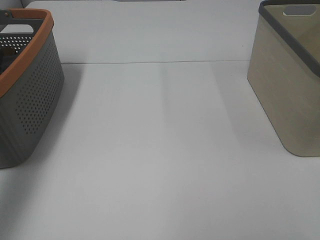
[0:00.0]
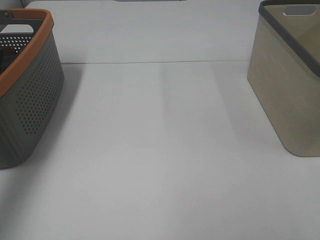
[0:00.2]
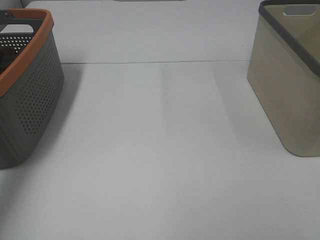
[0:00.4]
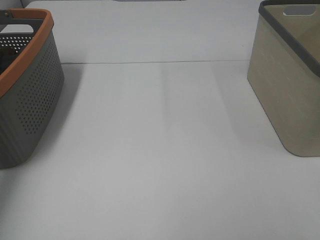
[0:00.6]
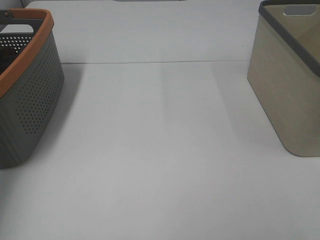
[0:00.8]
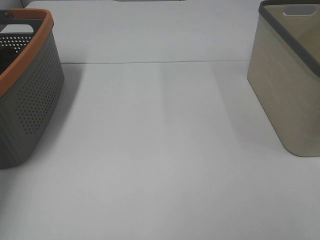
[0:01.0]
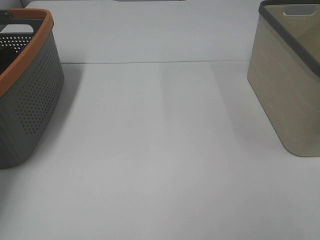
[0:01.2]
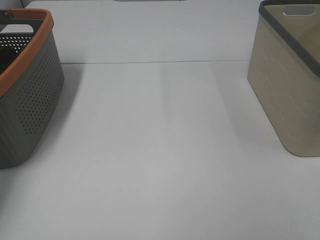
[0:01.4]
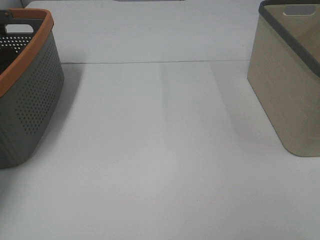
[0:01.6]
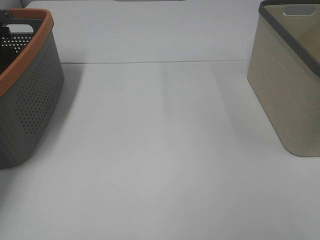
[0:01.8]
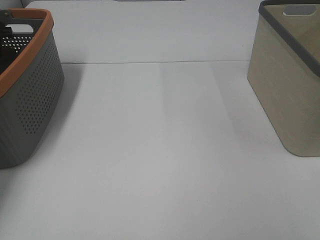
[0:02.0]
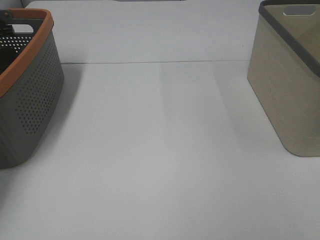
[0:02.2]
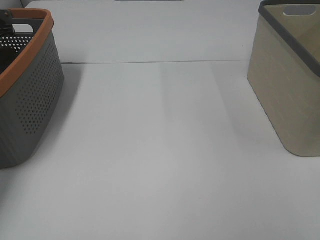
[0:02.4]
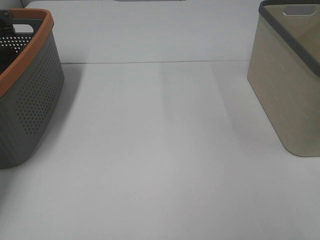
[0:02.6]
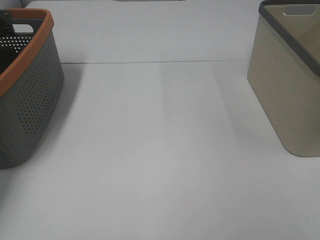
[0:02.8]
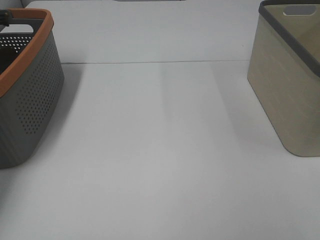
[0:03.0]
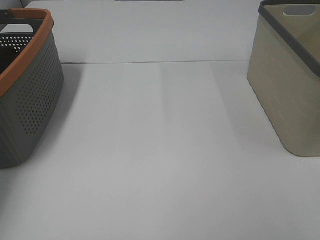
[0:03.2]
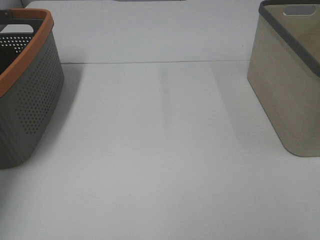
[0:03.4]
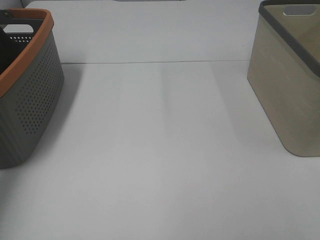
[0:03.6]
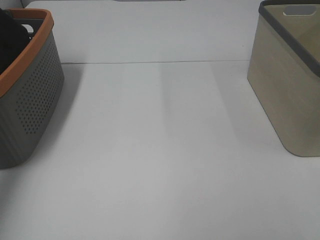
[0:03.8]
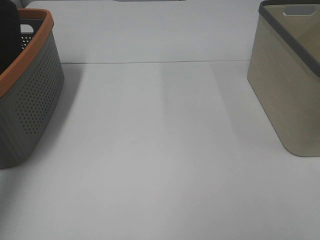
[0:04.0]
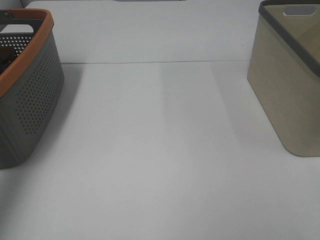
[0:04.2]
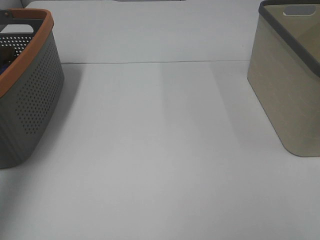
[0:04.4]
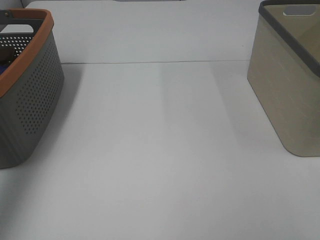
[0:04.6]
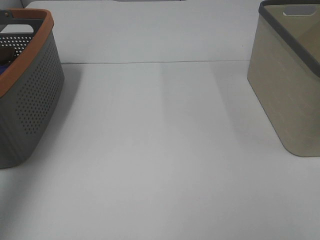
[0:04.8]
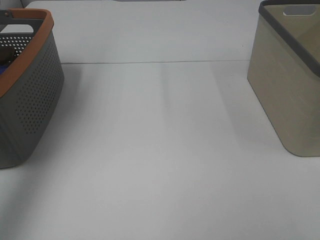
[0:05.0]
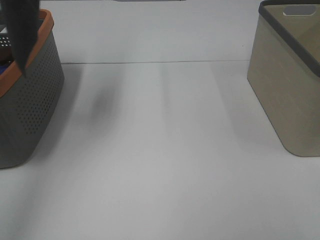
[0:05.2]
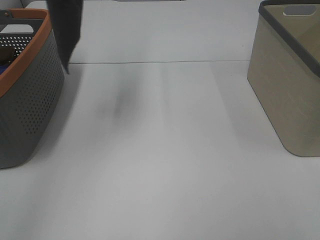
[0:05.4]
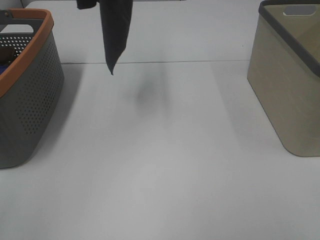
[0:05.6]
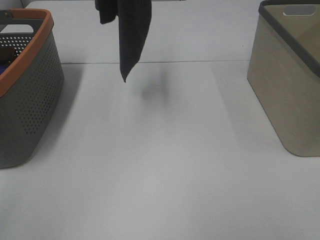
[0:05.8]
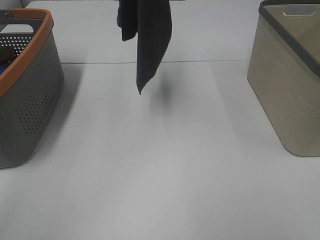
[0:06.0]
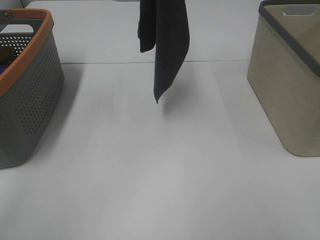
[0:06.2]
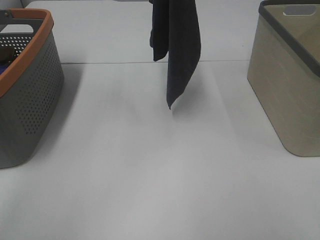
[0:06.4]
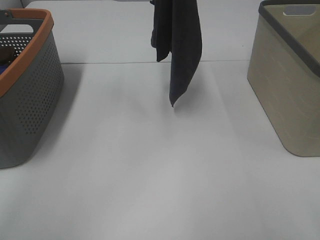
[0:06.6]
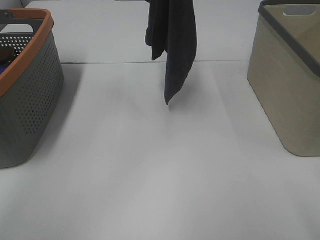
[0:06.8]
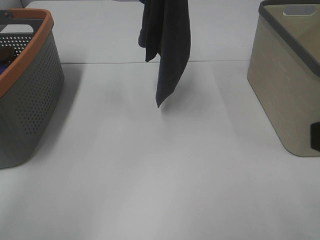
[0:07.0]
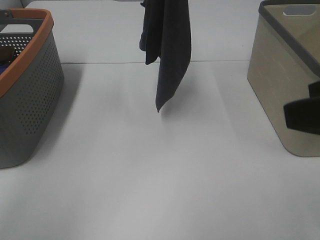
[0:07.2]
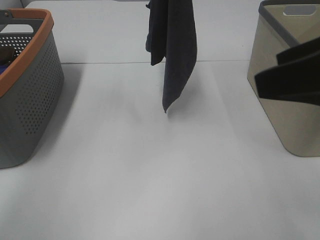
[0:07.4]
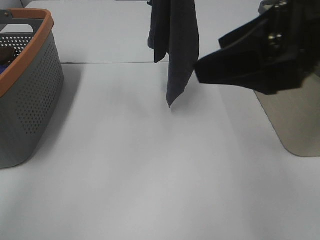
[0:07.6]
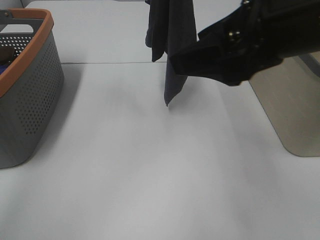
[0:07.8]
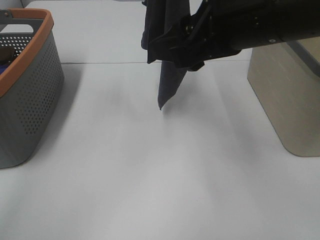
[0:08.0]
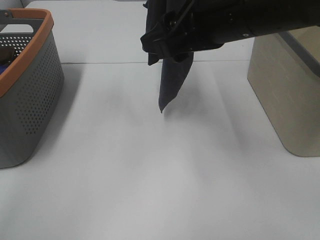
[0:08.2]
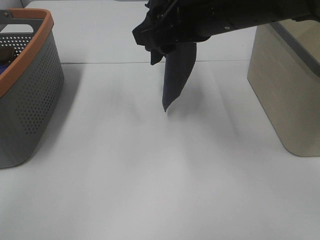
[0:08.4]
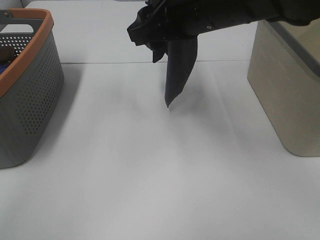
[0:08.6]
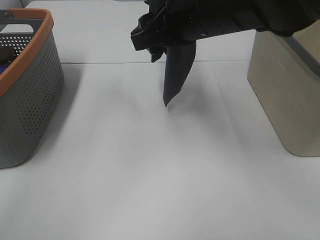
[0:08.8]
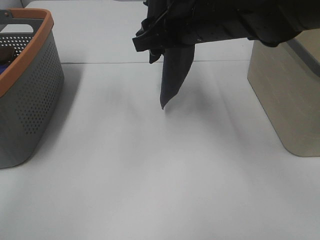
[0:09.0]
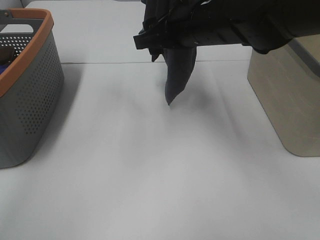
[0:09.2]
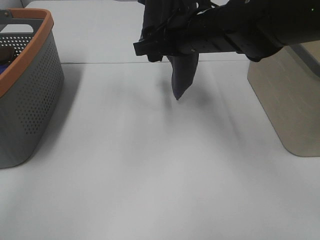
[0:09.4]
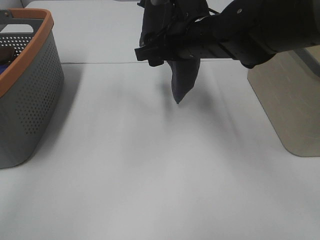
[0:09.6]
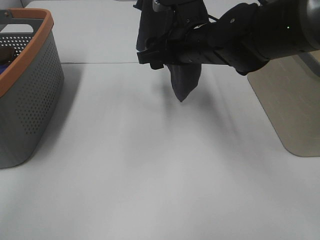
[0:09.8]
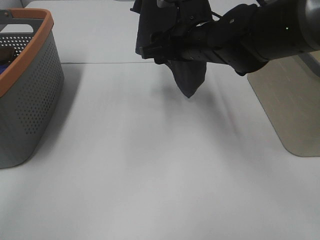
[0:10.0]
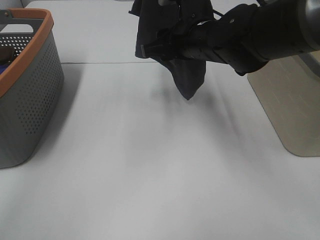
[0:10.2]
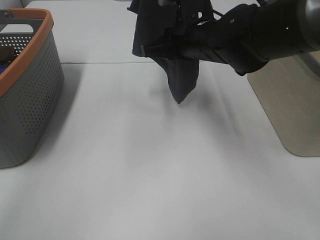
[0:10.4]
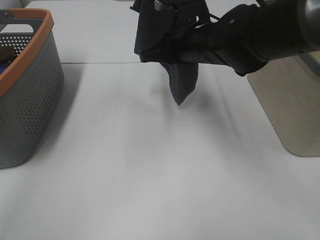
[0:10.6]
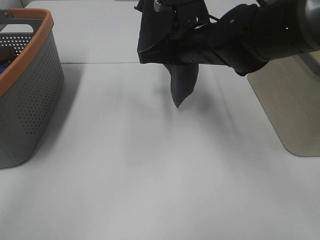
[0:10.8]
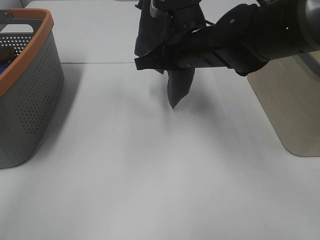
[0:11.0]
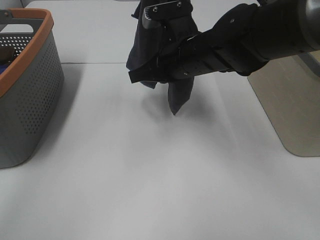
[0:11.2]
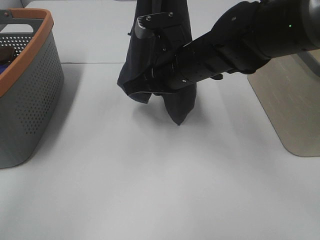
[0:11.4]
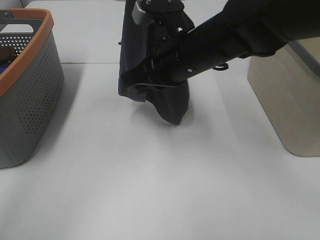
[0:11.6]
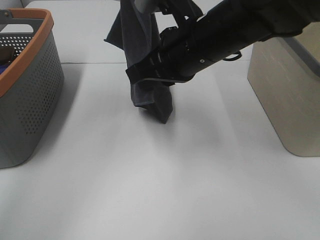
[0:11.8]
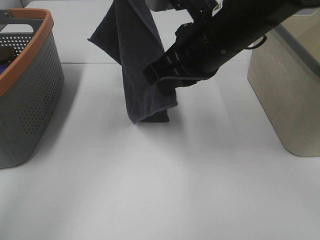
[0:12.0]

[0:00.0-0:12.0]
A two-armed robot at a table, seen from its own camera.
Task of the whole recording: Remove the towel and place it.
Step, 0:04.2 to 0:09.6: Right hand: grab a corner of the grey towel and straighten it.
0:00.0 to 0:01.6: The left gripper shifts approximately 25 cm forward and downward.
0:03.0 to 0:04.4: The left gripper goes approximately 35 cm upward and backward.
0:04.4 to 0:06.0: The left gripper moves to the right, some 25 cm.
0:06.0 to 0:07.6: The right gripper shifts roughly 20 cm forward and to the left; the left gripper moves approximately 5 cm.
0:07.6 to 0:09.0: The right gripper heads forward, to the left and downward, covering roughly 20 cm.
0:09.0 to 0:10.4: The right gripper shifts by approximately 5 cm, and closes its fingers.
0:10.4 to 0:12.0: The right gripper shifts approximately 10 cm backward and upward, and closes up. Meanwhile the left gripper is displaced to the left by some 5 cm.

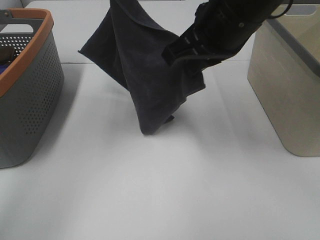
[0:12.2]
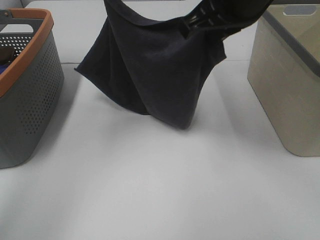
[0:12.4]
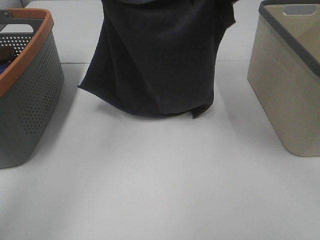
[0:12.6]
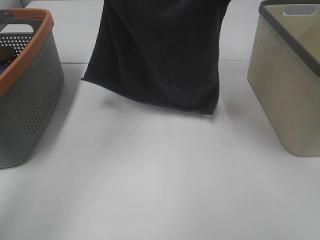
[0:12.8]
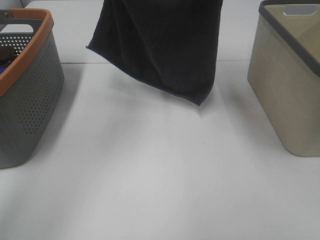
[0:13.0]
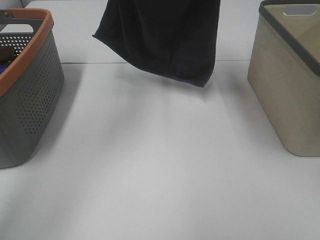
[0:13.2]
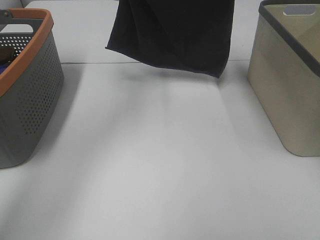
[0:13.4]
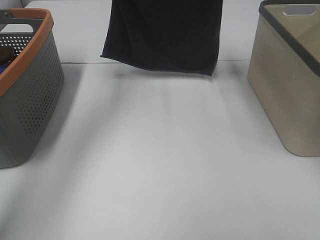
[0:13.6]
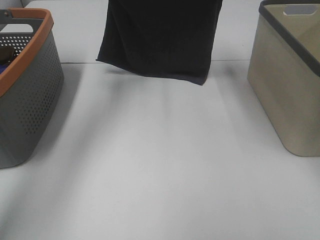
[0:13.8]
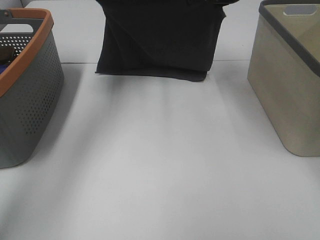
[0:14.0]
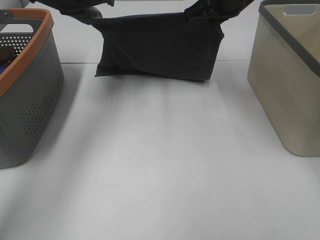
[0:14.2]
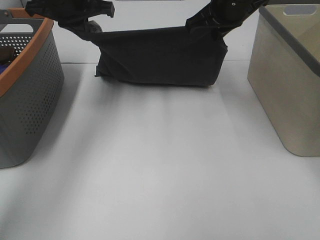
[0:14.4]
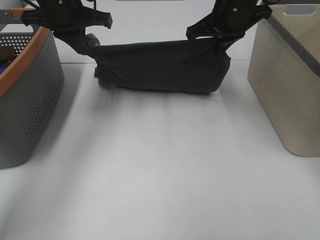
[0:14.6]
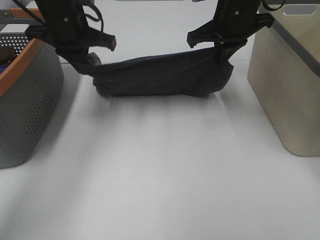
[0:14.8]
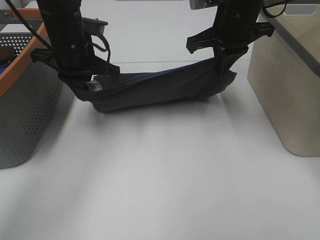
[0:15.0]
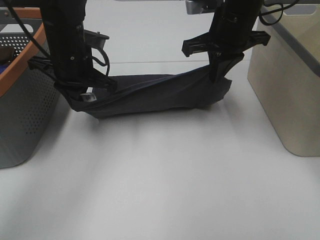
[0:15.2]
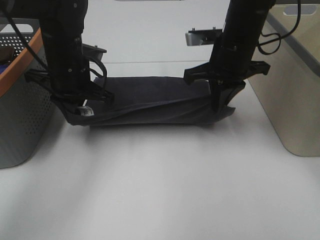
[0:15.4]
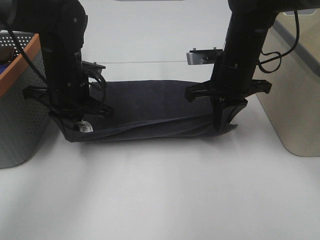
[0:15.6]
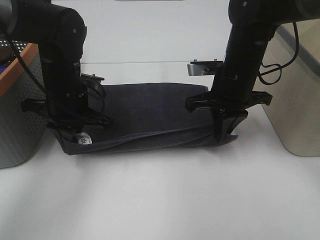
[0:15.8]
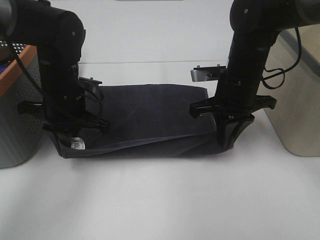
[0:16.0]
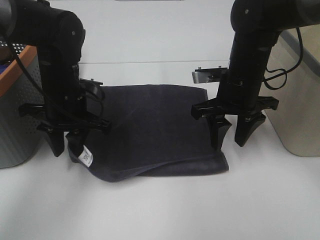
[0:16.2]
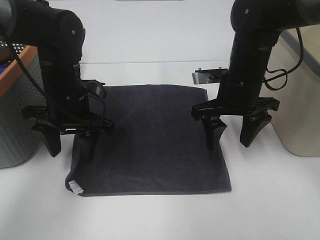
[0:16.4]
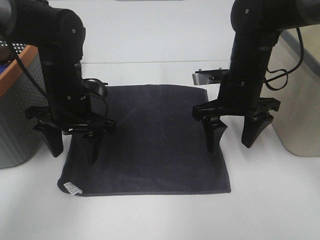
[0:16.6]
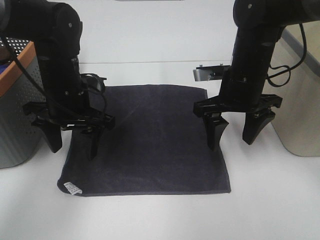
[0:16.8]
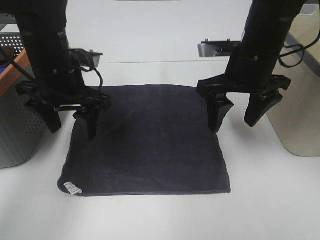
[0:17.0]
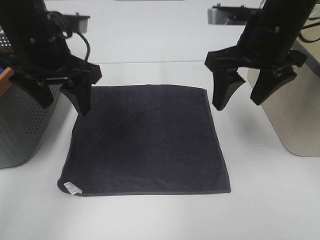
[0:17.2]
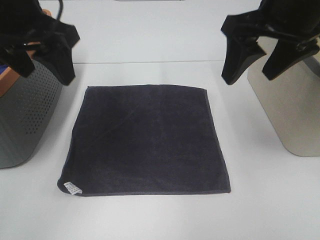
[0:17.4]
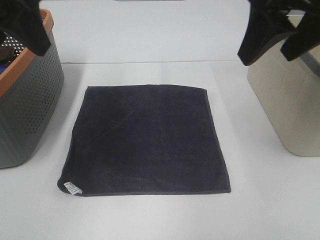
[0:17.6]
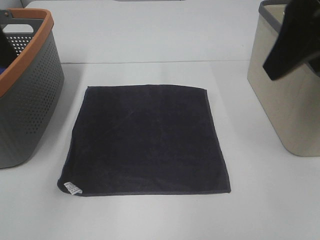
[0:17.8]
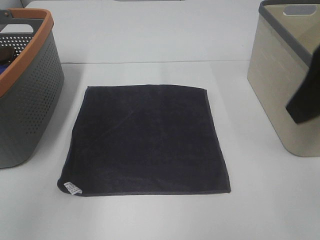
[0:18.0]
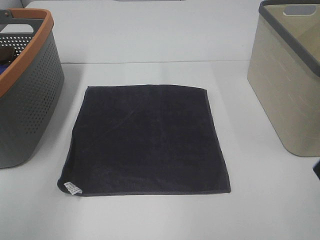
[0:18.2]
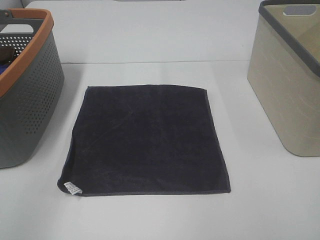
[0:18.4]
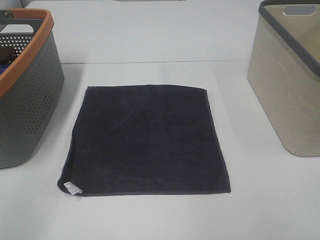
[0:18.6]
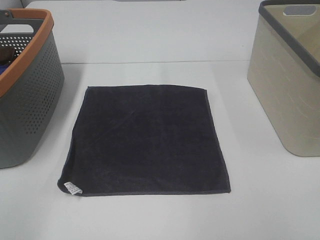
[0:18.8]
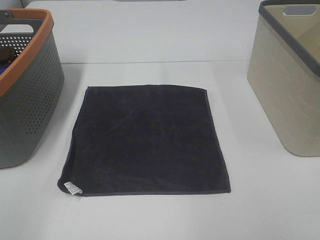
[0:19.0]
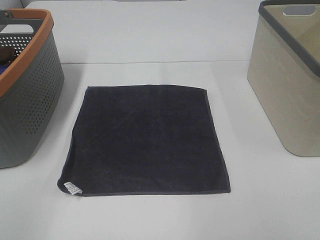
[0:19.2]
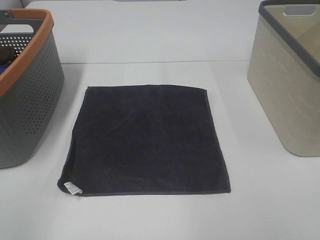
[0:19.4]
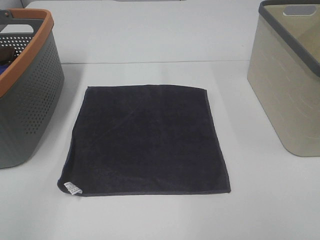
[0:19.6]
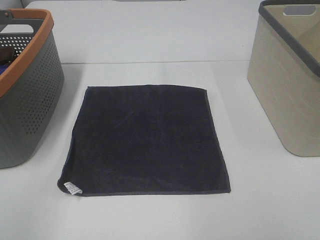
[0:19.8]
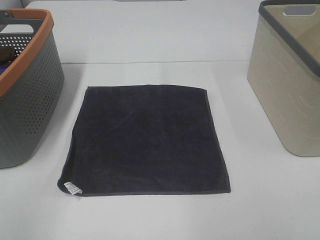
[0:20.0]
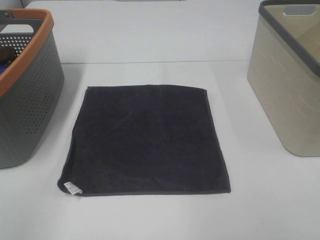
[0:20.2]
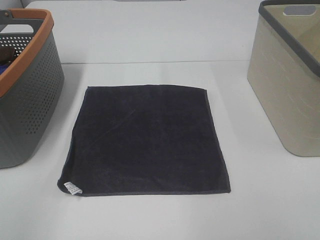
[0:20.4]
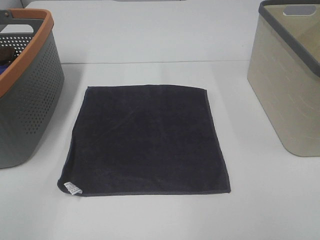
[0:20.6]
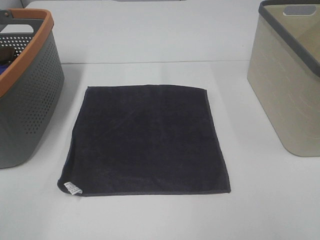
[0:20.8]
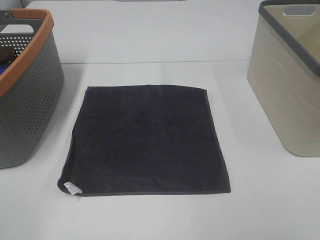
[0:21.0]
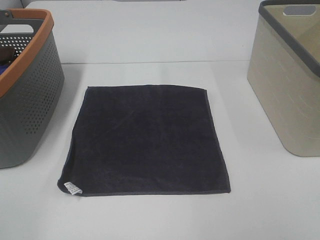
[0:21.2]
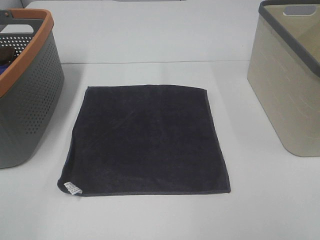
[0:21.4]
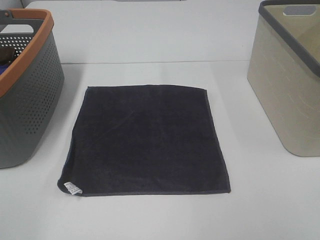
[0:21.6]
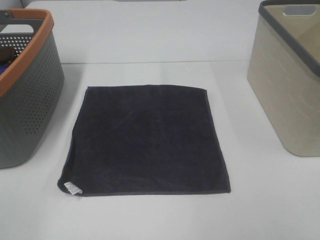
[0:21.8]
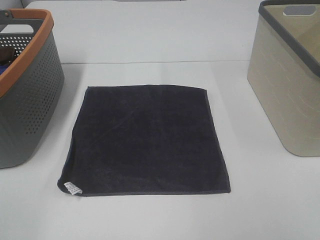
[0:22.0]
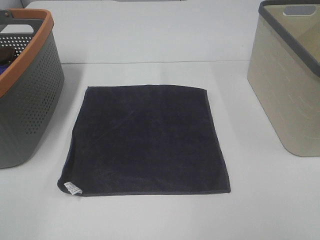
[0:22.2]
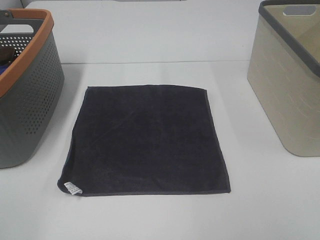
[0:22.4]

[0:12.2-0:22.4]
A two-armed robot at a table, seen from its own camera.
Task of the whole recording: Remove the towel and place it.
0:12.2 to 0:13.6: The right gripper goes some 15 cm forward, while the left gripper is displaced forward and downward by approximately 10 cm.
0:13.6 to 0:15.2: The right gripper goes approximately 10 cm downward and backward. Meanwhile the left gripper heads downward and backward, covering approximately 15 cm.
0:15.2 to 0:16.6: The right gripper shifts some 10 cm downward and backward, and opens its fingers. The left gripper changes place by approximately 5 cm, and opens up.
0:16.6 to 0:18.0: The left gripper shifts roughly 30 cm upward, backward and to the left. The right gripper heads upward and backward, covering approximately 25 cm.
0:18.0 to 0:19.4: The left gripper shifts about 15 cm backward, downward and to the left. Meanwhile the right gripper goes roughly 15 cm backward, to the right and downward.
0:21.0 to 0:22.4: Both grippers stay put.
